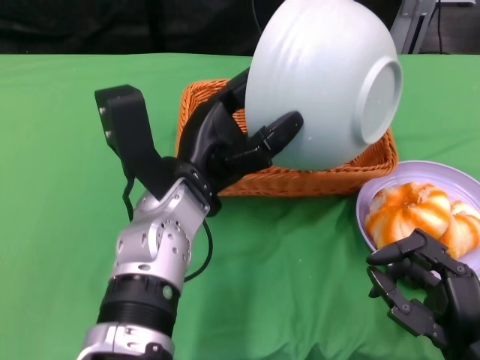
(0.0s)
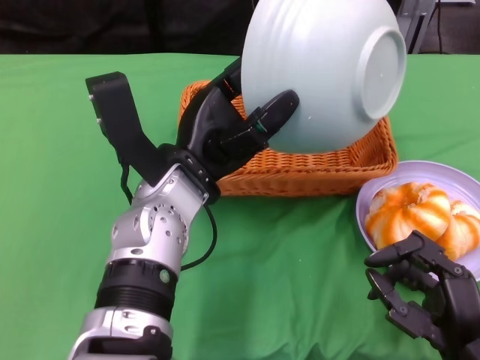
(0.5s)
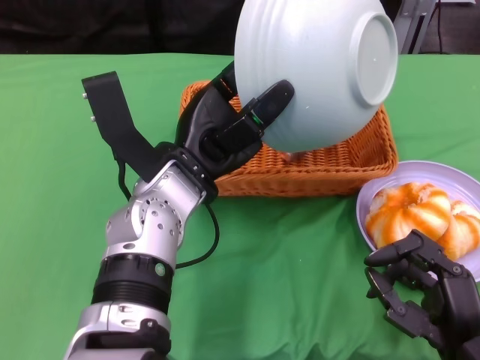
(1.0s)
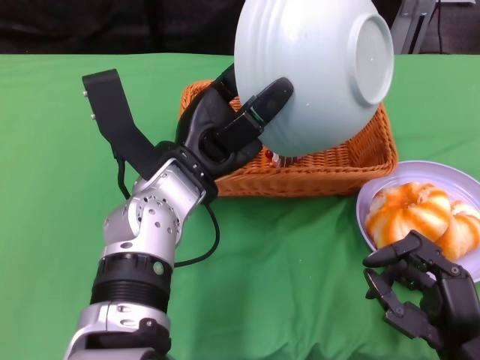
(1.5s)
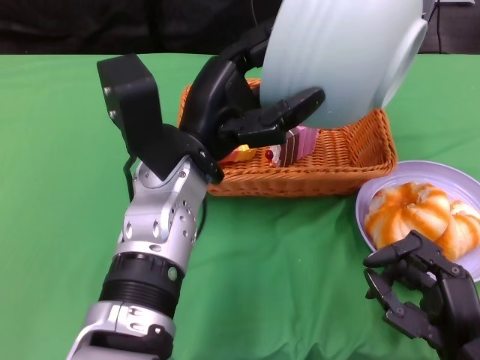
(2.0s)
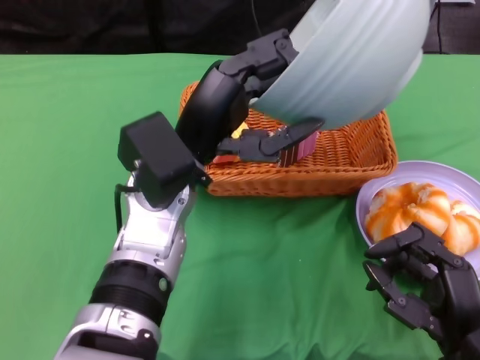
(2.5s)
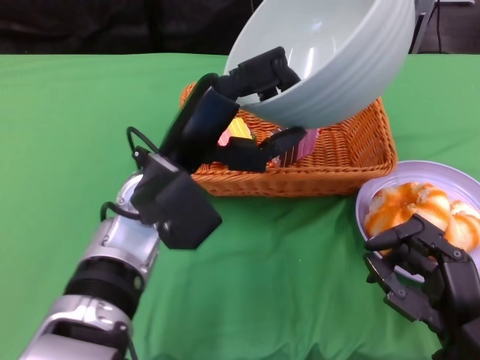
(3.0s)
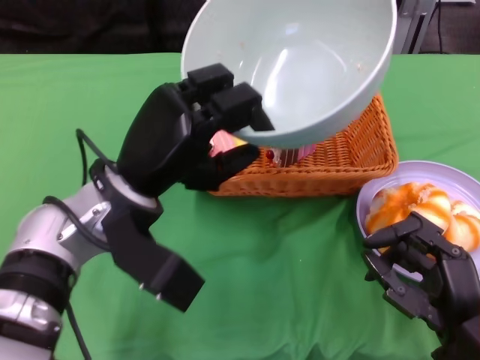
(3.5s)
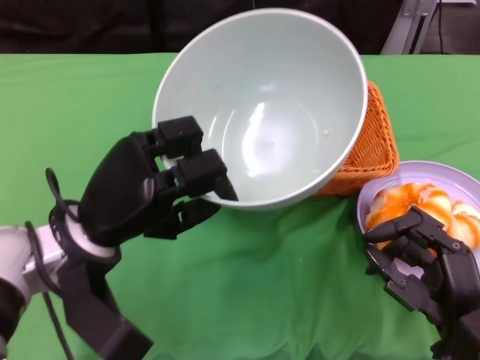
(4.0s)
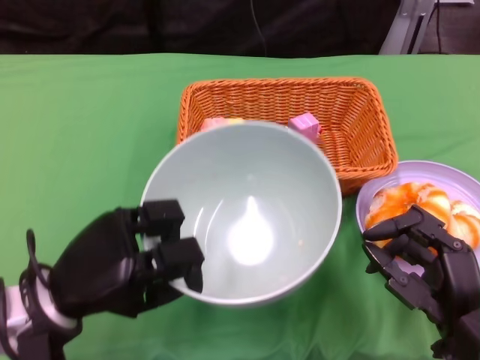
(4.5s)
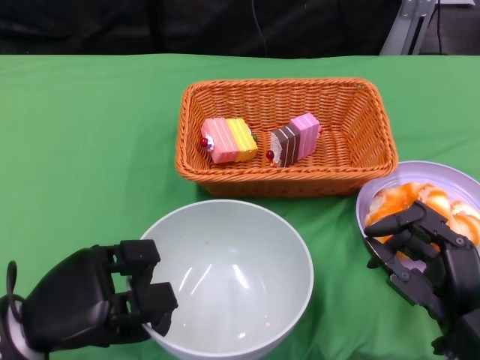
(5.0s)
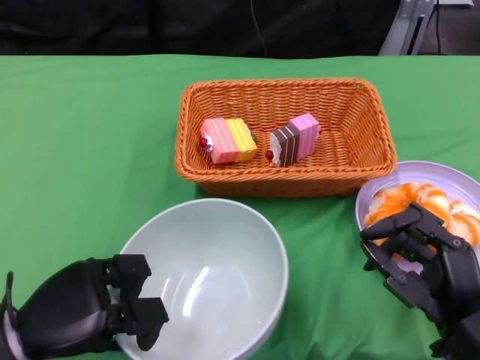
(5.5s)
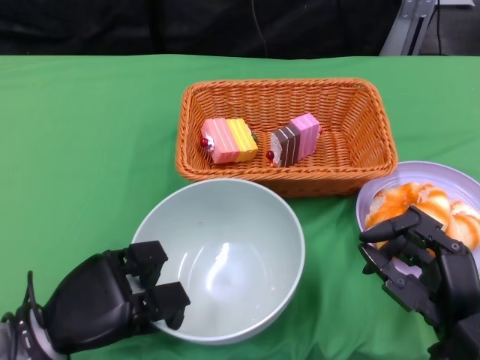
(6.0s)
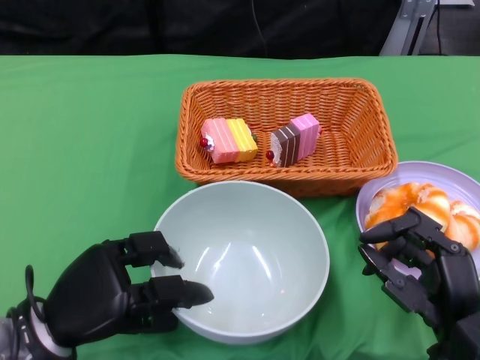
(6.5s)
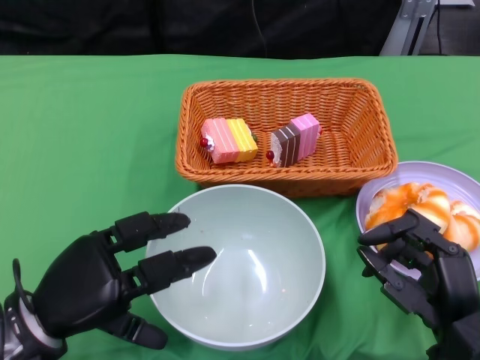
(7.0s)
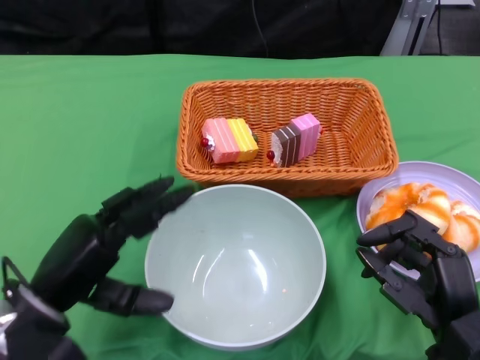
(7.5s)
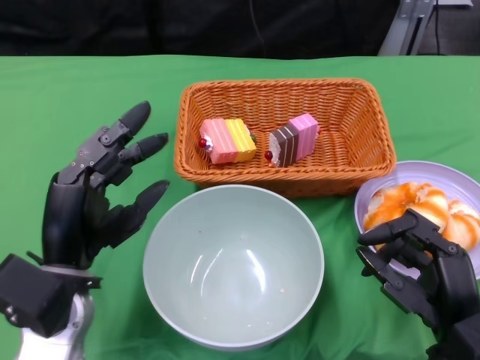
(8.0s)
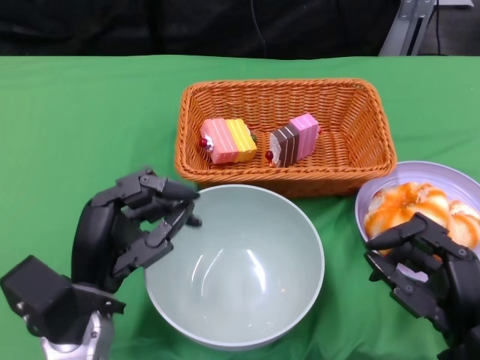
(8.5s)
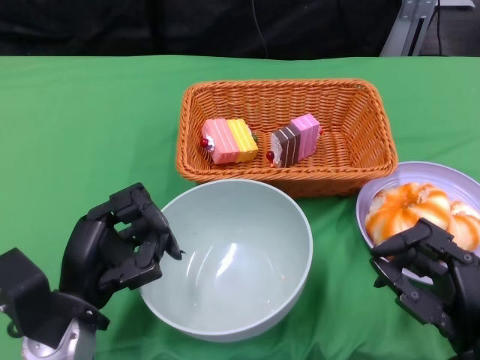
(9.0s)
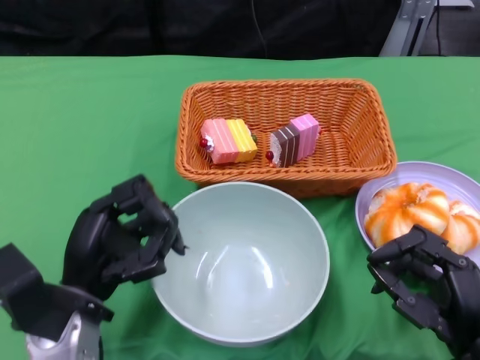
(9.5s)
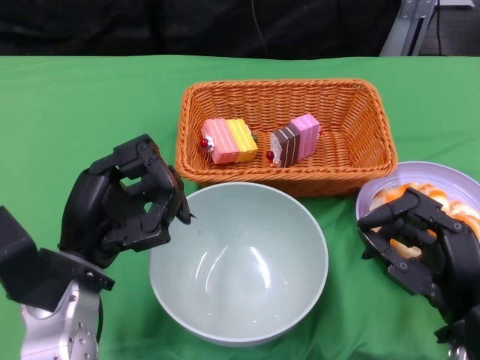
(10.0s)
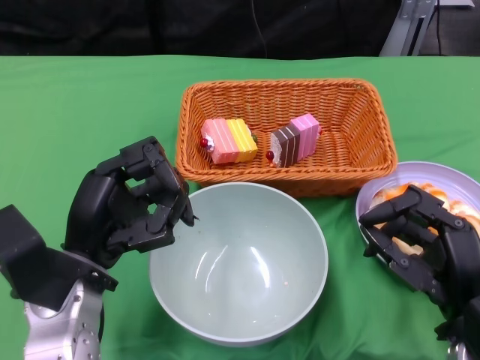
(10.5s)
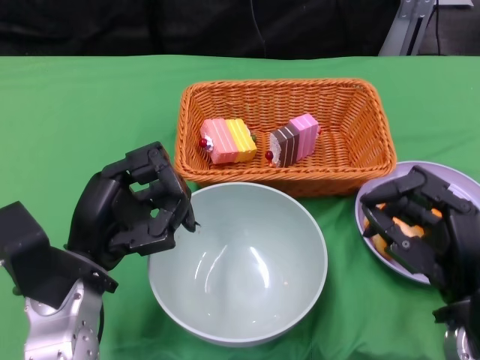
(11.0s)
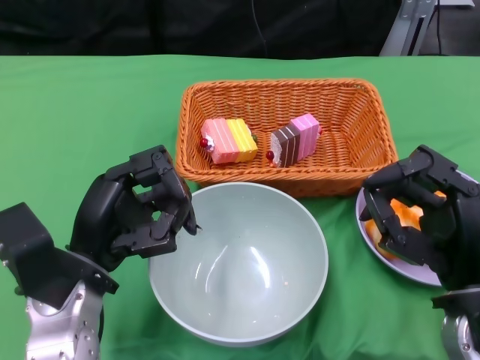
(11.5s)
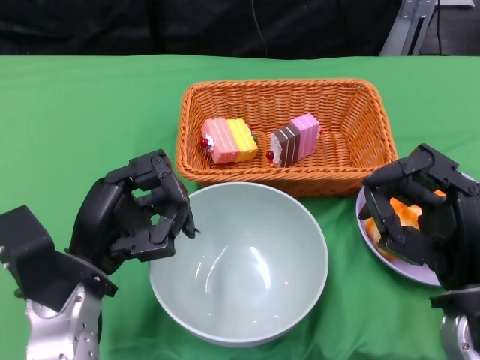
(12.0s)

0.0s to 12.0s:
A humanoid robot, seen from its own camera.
Step, 0.0s to 2.0s: Pour the cake into the basket with the left gripper.
Step, 2.5s to 6.5s: Place the bowl on the table with the left gripper.
2.0s to 4.0s: The left hand travels to the left and downward by some 10 cm.
4.0s to 6.0s: The left hand travels downward, backward and to the left by some 10 cm.
6.0s to 8.0s: The left hand moves upward, some 5 cm.
10.0s to 12.0s: The hands make only small movements.

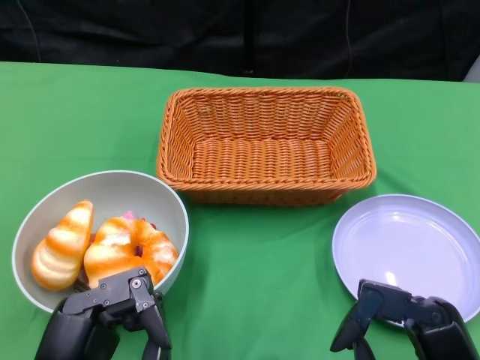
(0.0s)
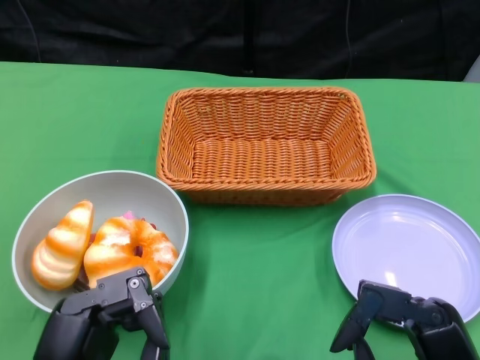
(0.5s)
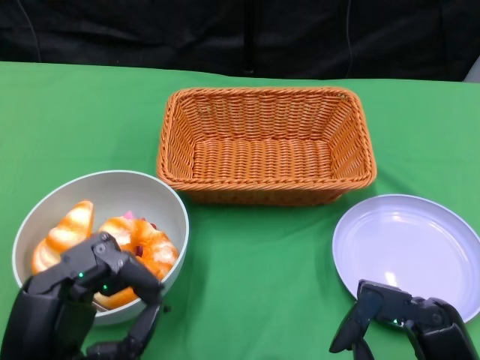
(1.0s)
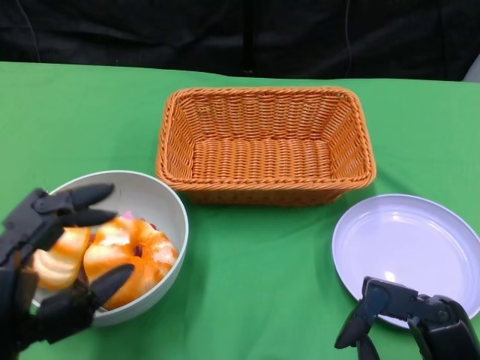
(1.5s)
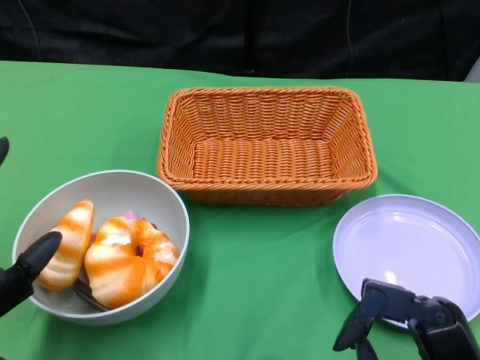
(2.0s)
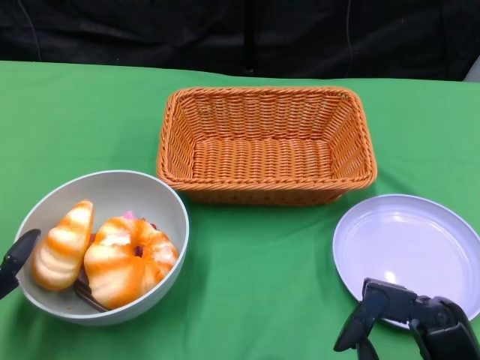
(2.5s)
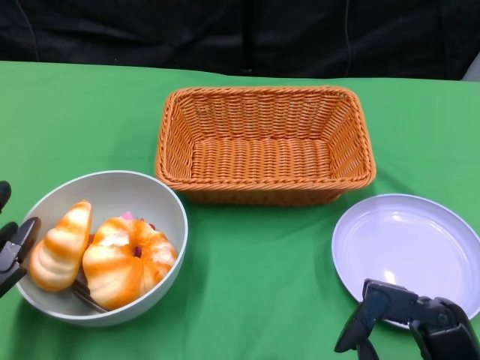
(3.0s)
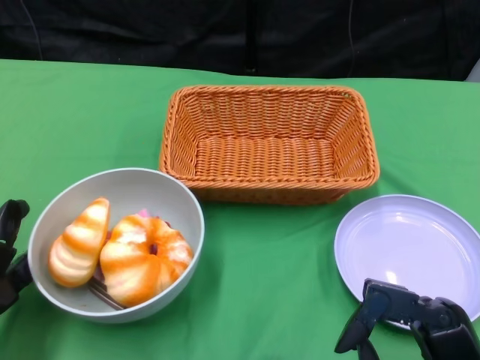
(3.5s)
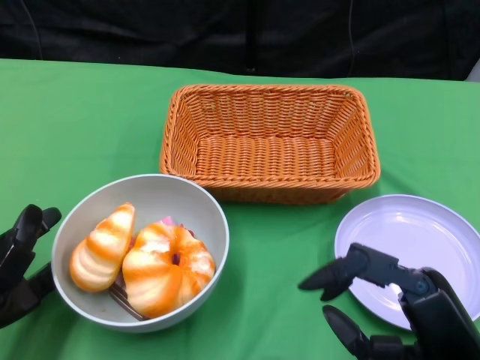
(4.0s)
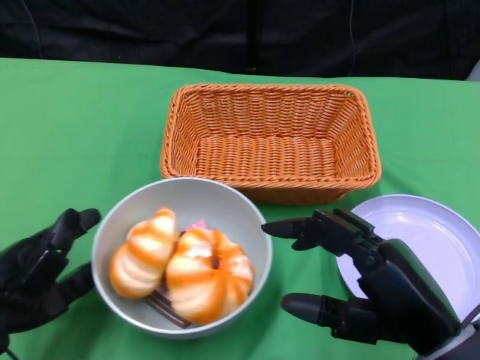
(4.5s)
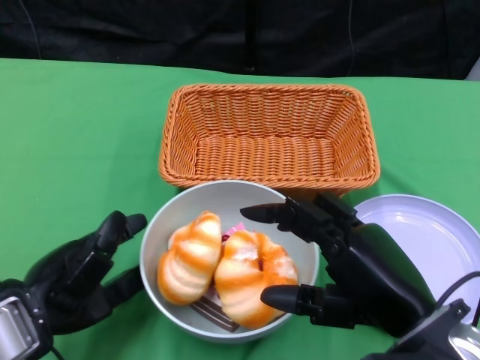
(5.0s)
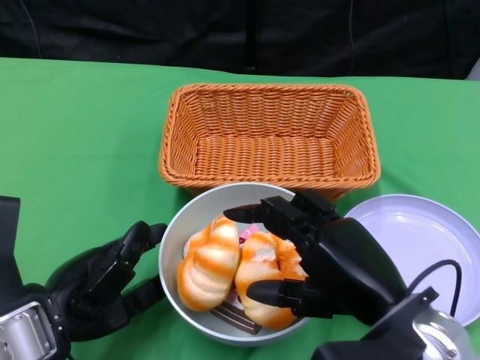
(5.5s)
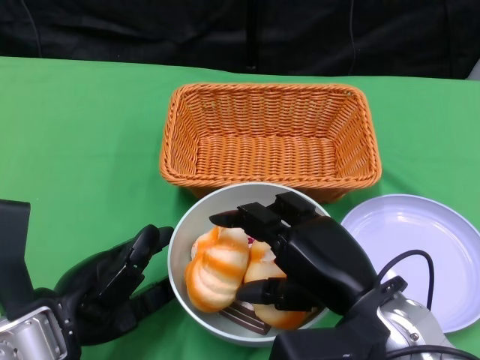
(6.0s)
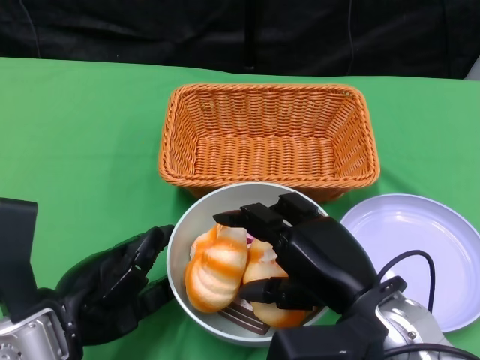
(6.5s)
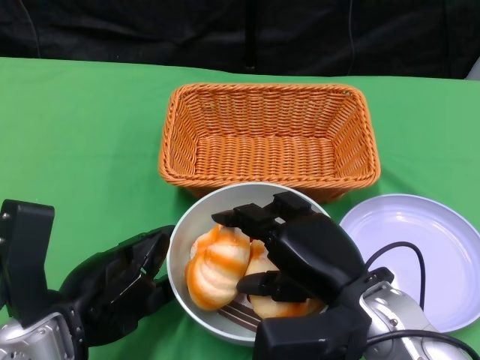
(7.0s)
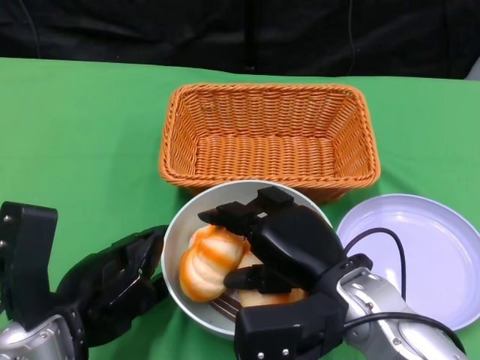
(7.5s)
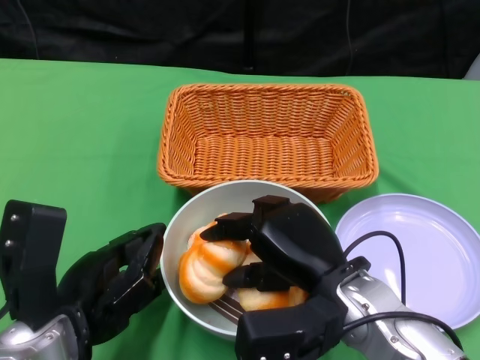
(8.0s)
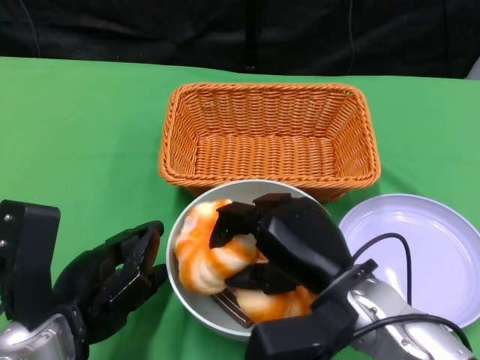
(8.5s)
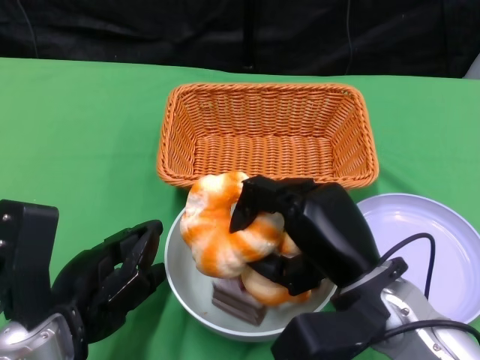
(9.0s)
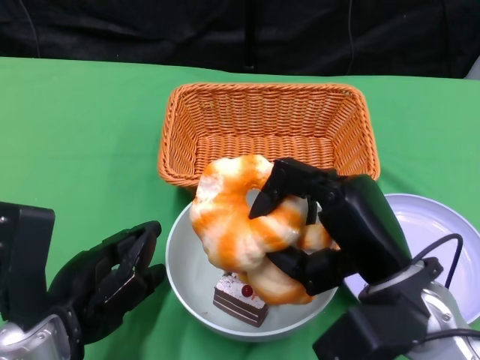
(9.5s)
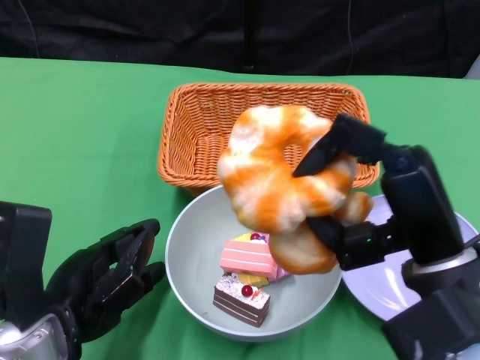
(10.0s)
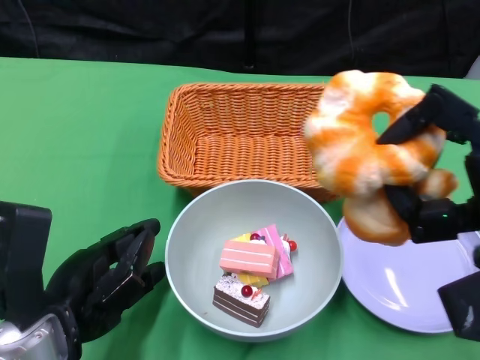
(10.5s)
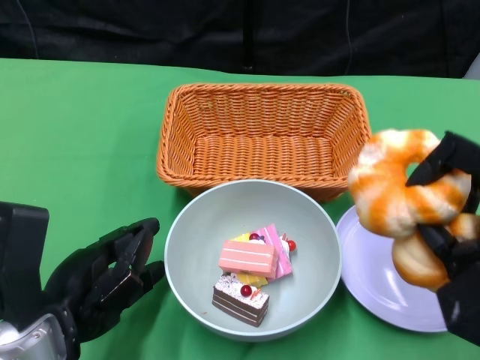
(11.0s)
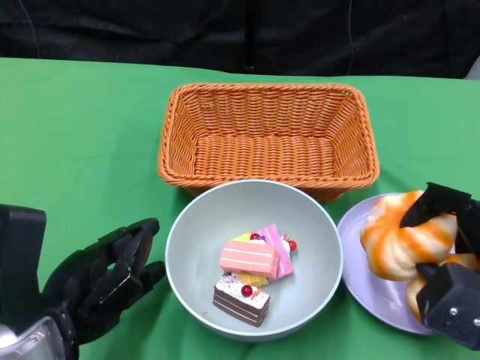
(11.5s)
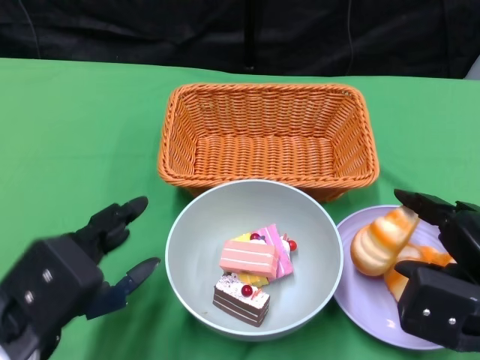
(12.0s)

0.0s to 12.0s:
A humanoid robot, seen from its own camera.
Step, 0.0s to 5.5s: Push the bowl to the center of the table using the left gripper.
2.0s to 4.0s: The left hand goes roughly 5 cm forward.
4.0s to 6.0s: The left hand moves to the right, some 10 cm, while the right hand moves to the left and forward, approximately 10 cm.
8.0s to 10.0s: The right hand shifts some 10 cm to the right and upward.
10.0s to 12.0s: The right hand shifts about 10 cm to the right and downward.

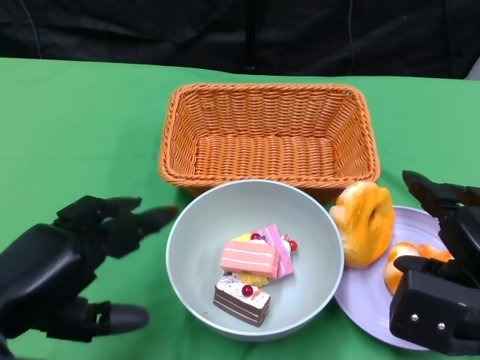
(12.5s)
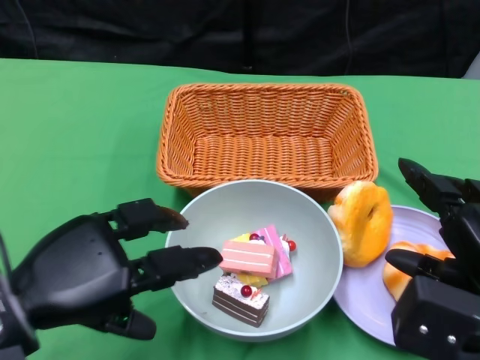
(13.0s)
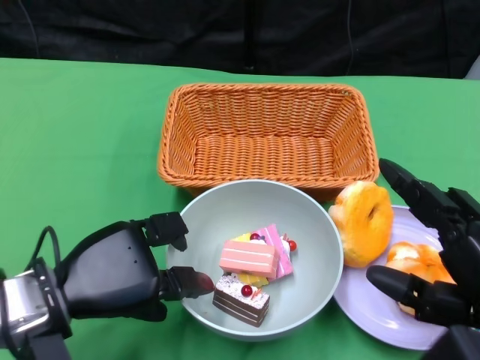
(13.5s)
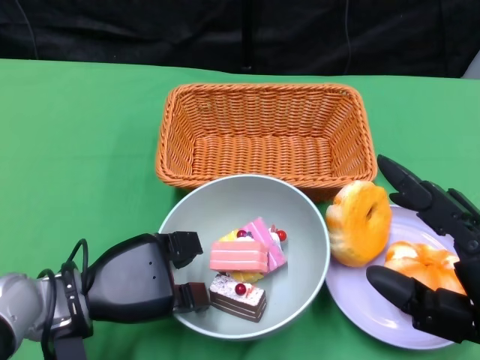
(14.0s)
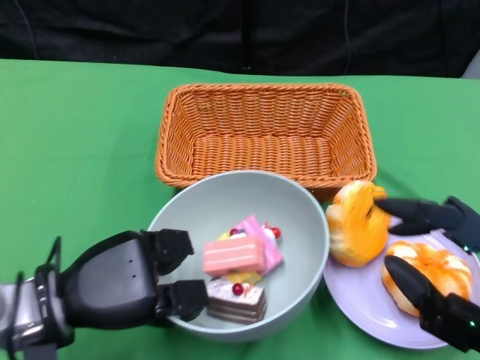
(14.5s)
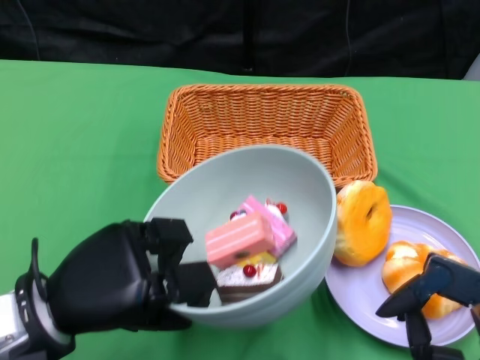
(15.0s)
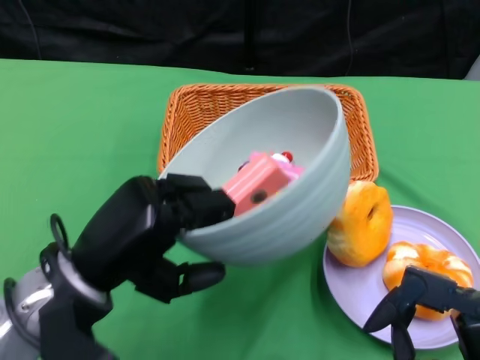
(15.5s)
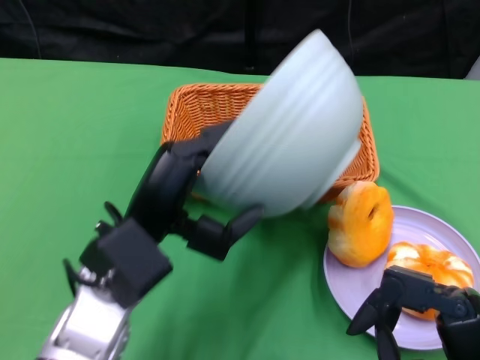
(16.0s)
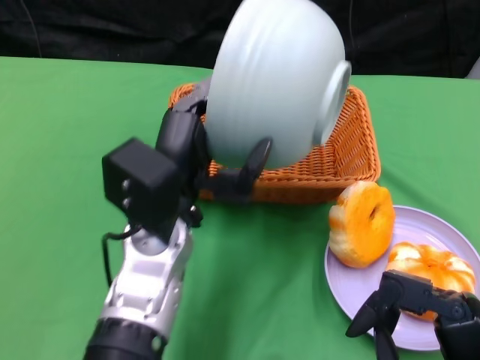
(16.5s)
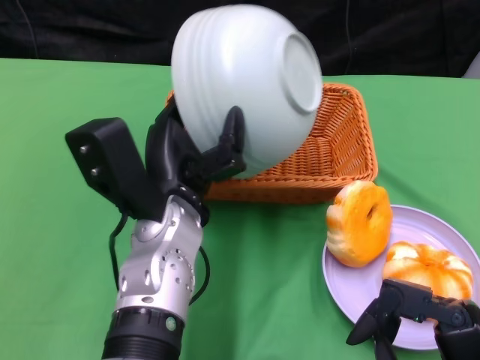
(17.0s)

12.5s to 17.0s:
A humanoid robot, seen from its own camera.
Step, 12.5s to 14.0s: Grasp the bowl with the left gripper.
12.5s to 14.5s: The right hand travels backward by some 10 cm. Meanwhile the left hand heads downward and forward, covering about 10 cm.
14.5s to 17.0s: The right hand moves downward, roughly 5 cm. Meanwhile the left hand heads to the right and upward, covering roughly 15 cm.
